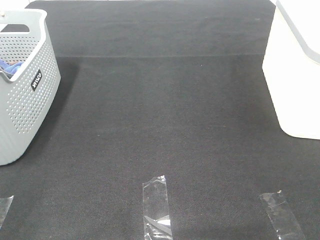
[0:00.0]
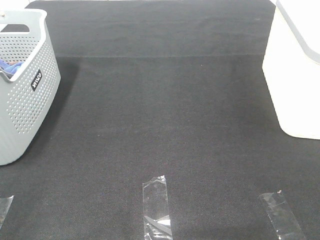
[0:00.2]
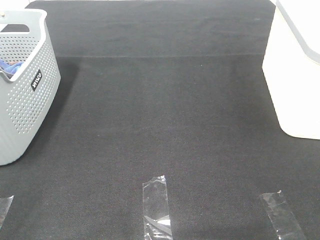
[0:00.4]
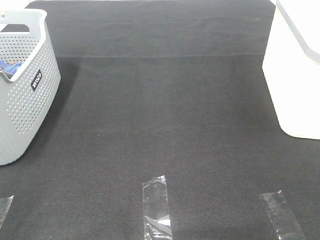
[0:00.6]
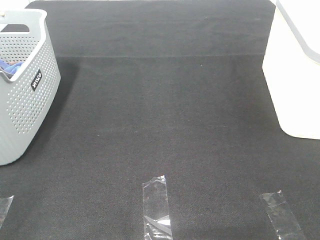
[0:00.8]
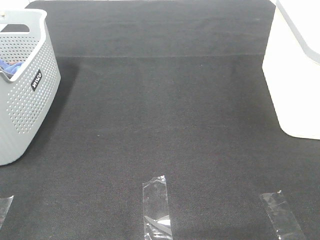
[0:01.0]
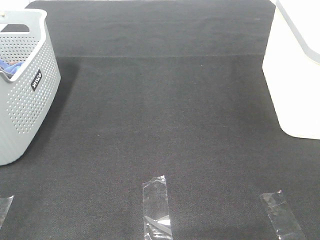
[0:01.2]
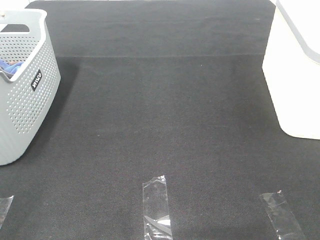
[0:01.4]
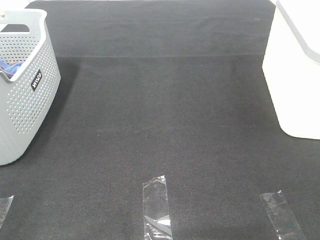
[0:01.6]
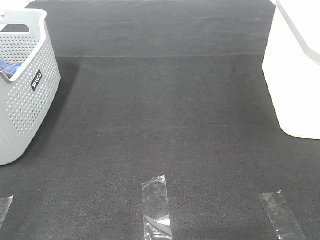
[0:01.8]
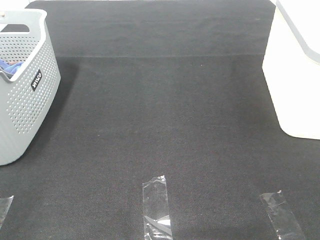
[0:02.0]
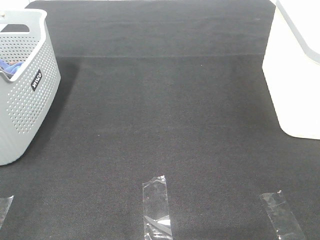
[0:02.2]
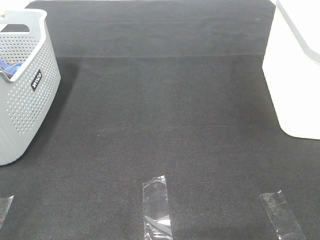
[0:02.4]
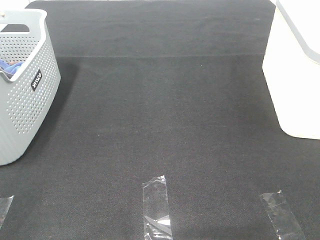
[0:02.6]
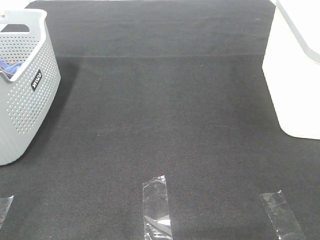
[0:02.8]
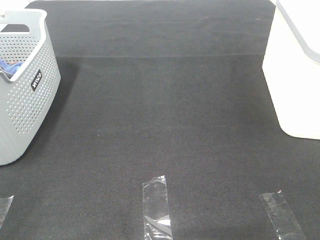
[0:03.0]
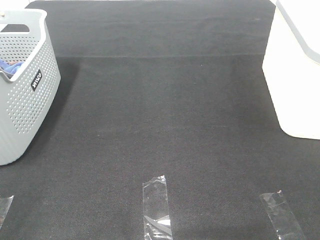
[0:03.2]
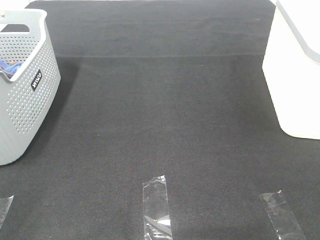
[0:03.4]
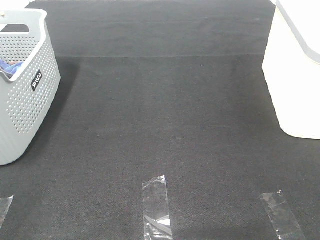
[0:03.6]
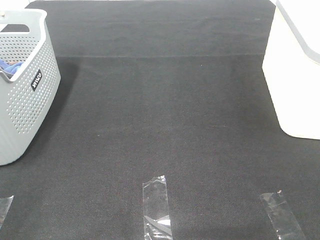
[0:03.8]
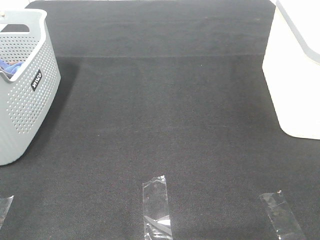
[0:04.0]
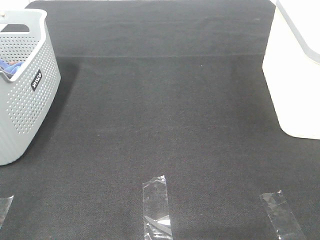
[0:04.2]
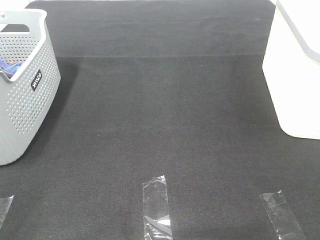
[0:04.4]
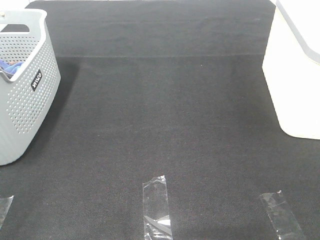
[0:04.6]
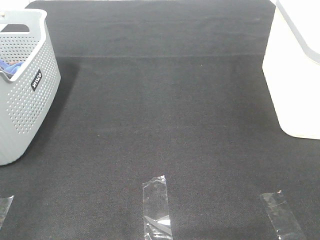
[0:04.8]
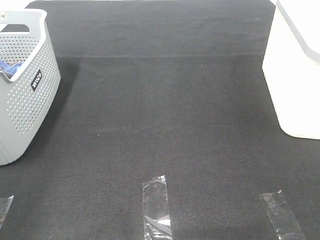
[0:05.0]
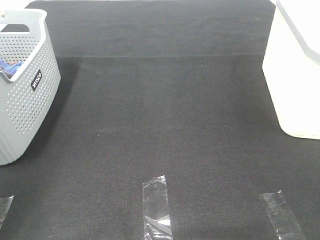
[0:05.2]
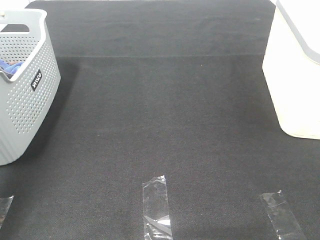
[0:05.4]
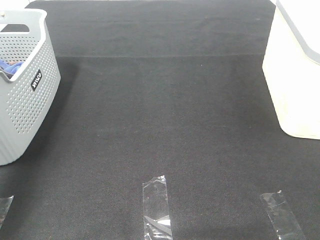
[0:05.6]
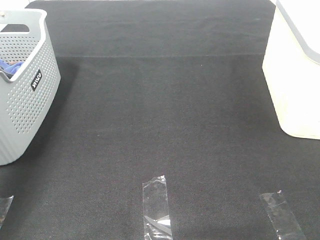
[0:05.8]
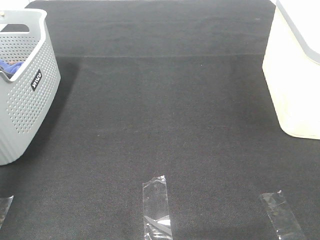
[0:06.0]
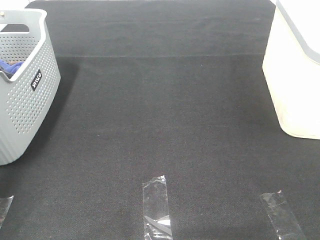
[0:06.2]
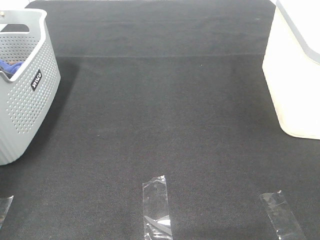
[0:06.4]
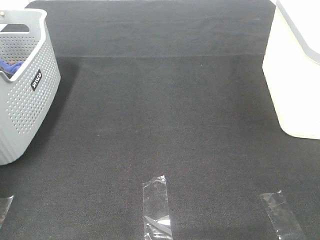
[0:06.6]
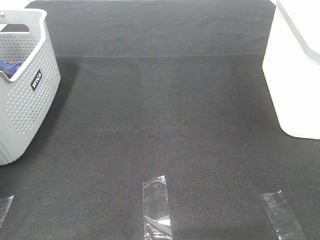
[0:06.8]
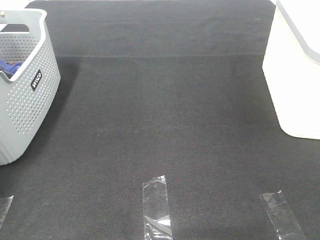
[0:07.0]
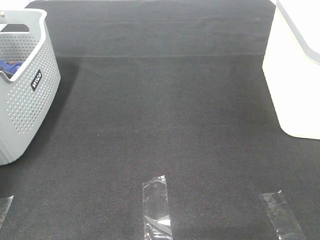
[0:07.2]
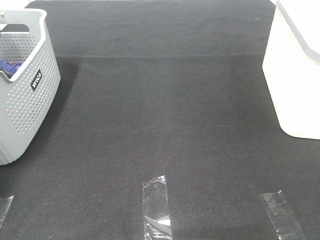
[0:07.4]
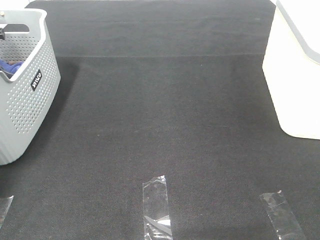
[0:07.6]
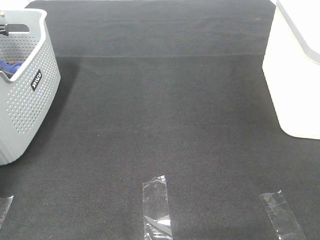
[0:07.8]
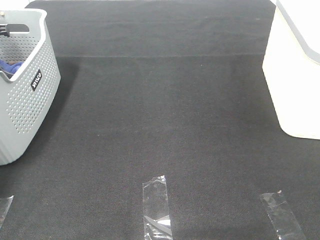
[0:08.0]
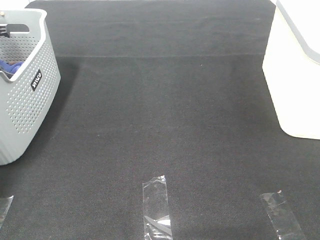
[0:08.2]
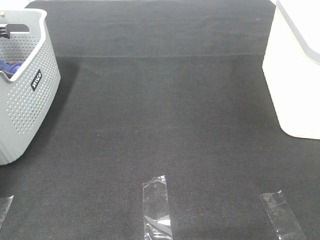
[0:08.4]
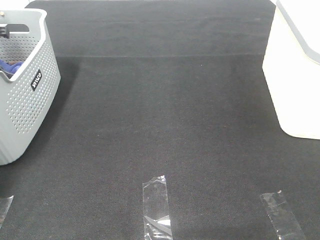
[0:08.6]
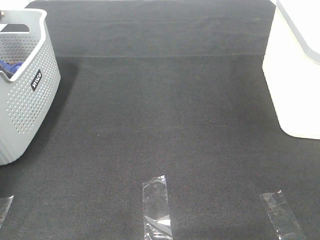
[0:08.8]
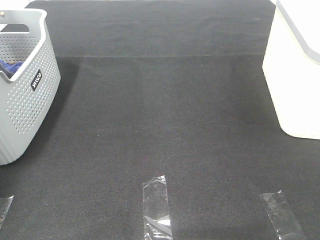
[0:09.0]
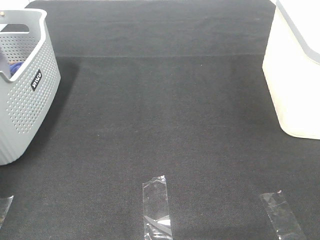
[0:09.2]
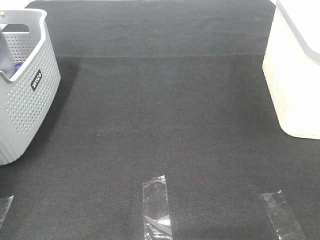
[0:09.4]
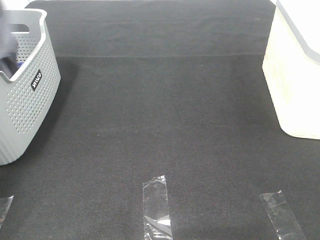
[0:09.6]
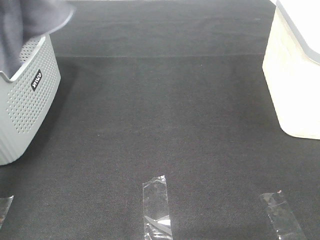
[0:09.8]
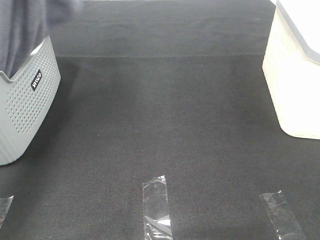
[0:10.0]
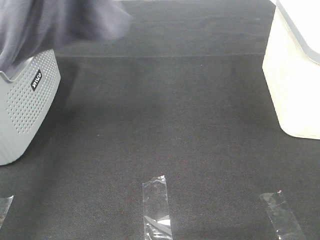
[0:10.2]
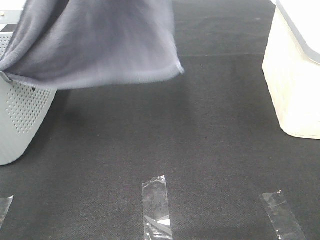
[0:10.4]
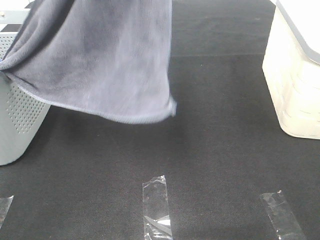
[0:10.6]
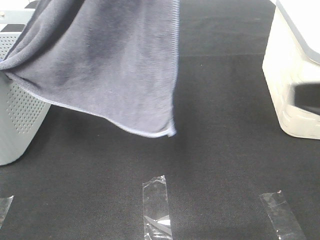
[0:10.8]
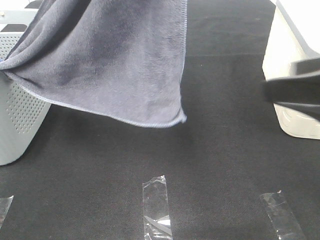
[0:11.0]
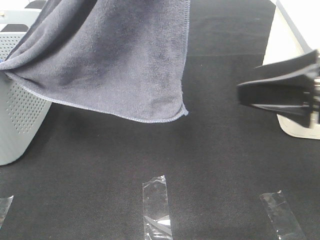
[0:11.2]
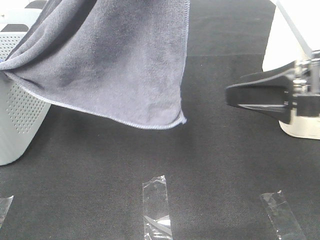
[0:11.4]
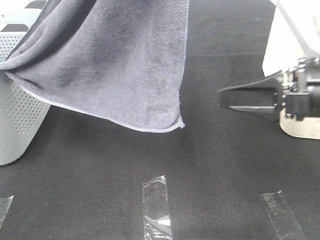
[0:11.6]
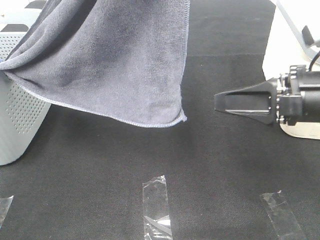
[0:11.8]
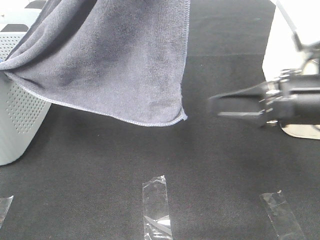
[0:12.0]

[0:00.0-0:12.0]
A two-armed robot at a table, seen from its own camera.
Task of the whole recording: Remove the towel and place it.
0:00.0 to 0:04.4: Neither gripper changes place.
0:04.4 to 0:06.0: The left gripper heads forward, covering some 40 cm.
0:06.0 to 0:07.6: The left gripper is displaced forward, downward and to the left by approximately 20 cm.
0:07.6 to 0:09.0: The left gripper shifts about 10 cm upward, and closes.
0:09.0 to 0:10.4: The right gripper travels forward by some 5 cm. Meanwhile the left gripper heads to the right, upward and backward, covering some 35 cm.
0:10.4 to 0:12.0: The right gripper goes some 20 cm forward and downward. The left gripper changes place by roughly 5 cm.

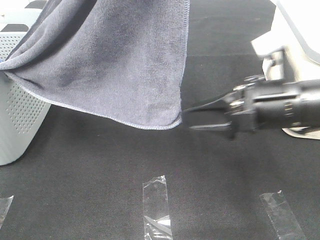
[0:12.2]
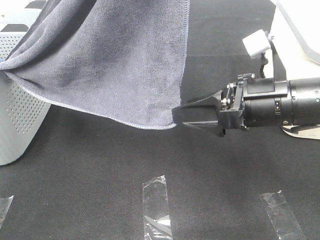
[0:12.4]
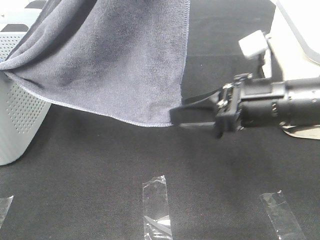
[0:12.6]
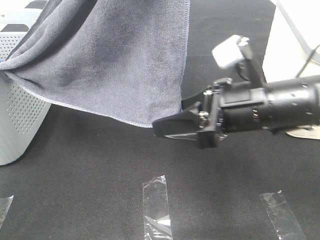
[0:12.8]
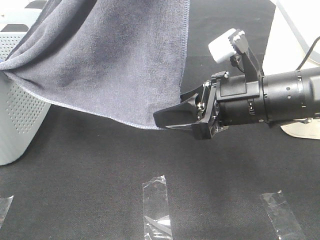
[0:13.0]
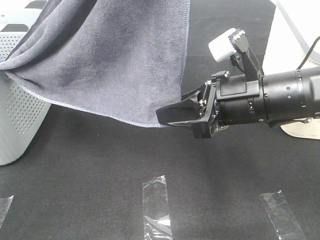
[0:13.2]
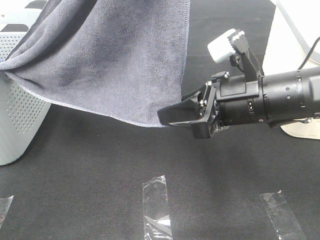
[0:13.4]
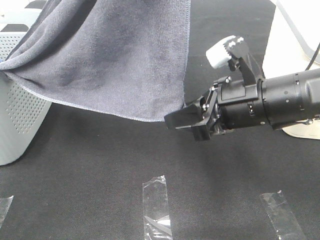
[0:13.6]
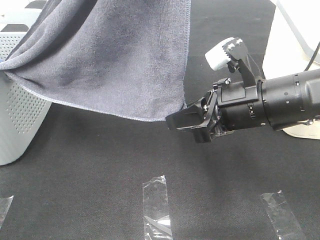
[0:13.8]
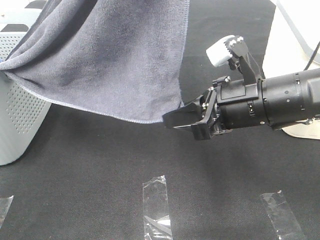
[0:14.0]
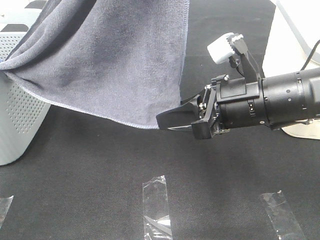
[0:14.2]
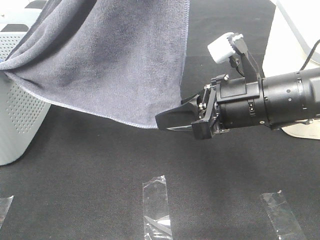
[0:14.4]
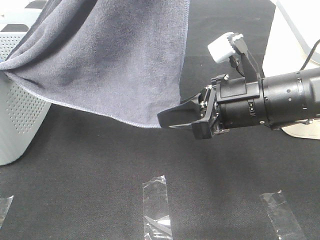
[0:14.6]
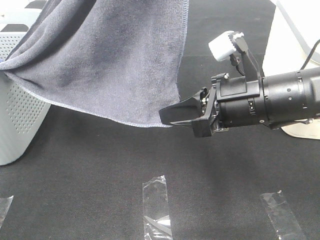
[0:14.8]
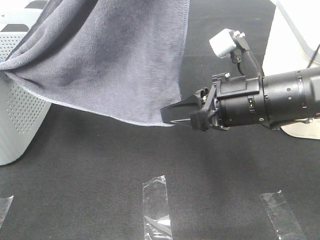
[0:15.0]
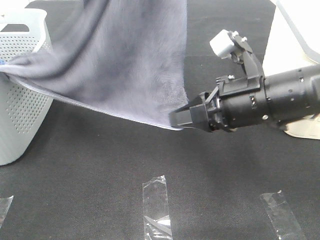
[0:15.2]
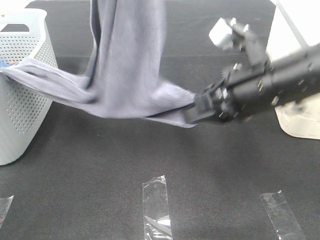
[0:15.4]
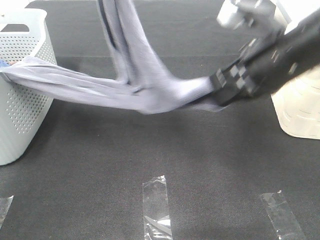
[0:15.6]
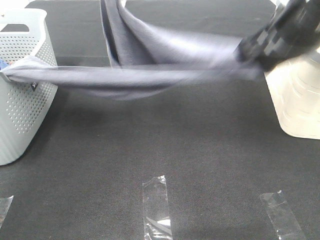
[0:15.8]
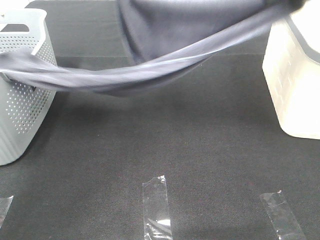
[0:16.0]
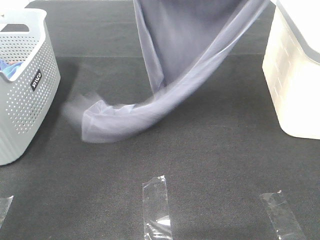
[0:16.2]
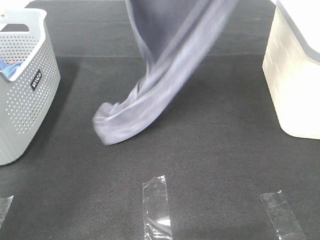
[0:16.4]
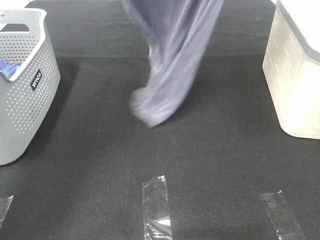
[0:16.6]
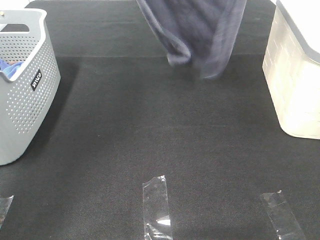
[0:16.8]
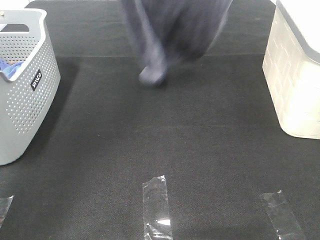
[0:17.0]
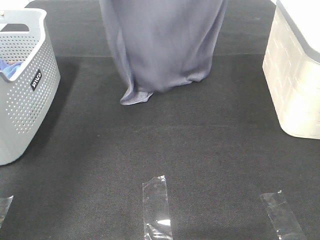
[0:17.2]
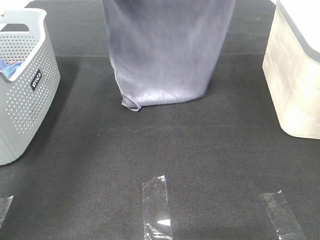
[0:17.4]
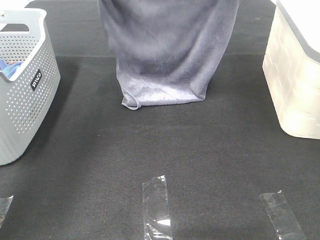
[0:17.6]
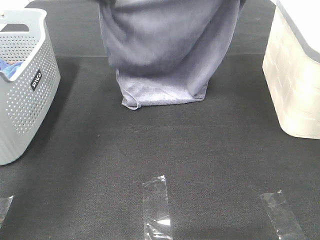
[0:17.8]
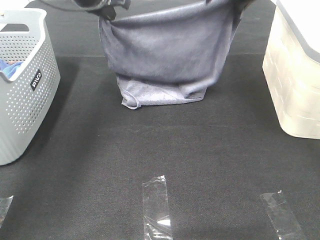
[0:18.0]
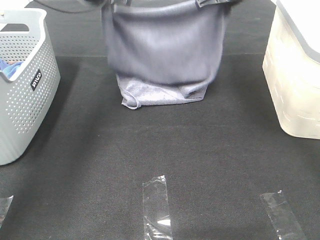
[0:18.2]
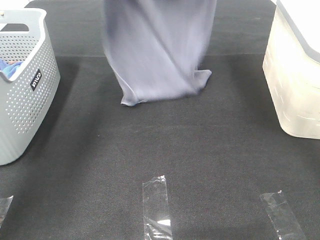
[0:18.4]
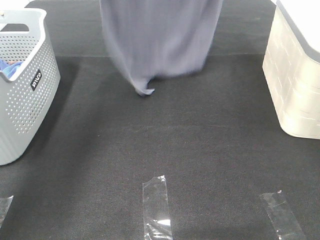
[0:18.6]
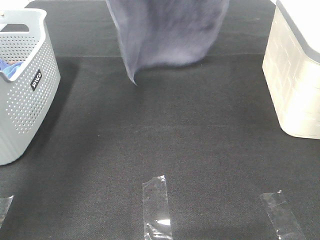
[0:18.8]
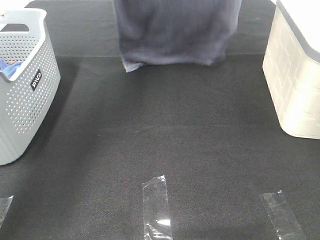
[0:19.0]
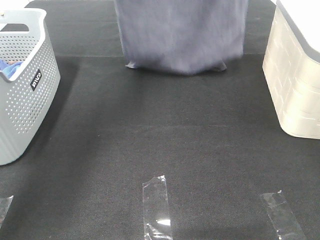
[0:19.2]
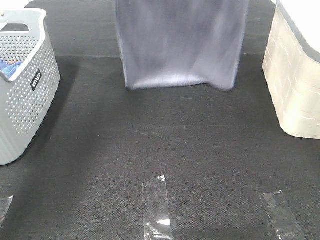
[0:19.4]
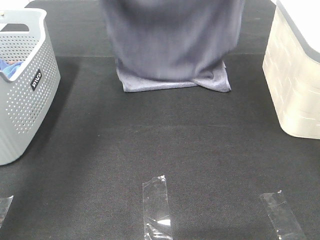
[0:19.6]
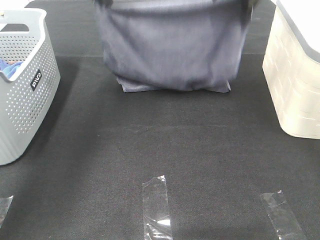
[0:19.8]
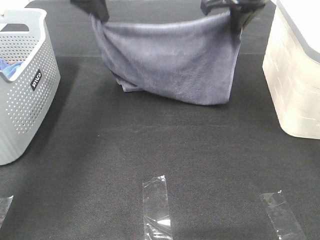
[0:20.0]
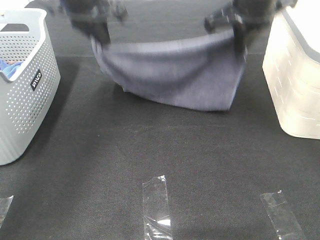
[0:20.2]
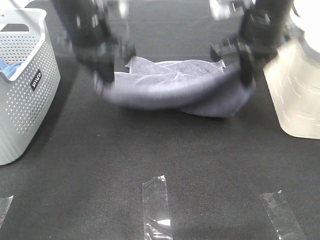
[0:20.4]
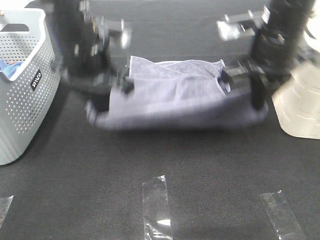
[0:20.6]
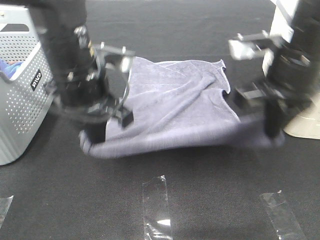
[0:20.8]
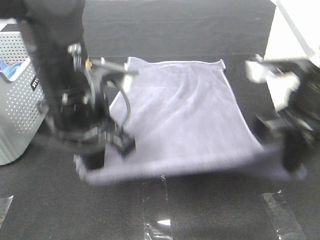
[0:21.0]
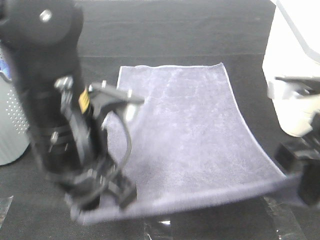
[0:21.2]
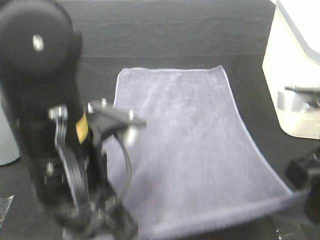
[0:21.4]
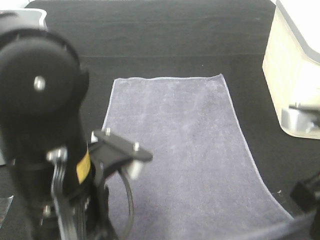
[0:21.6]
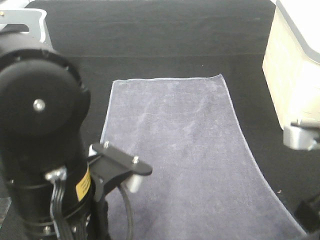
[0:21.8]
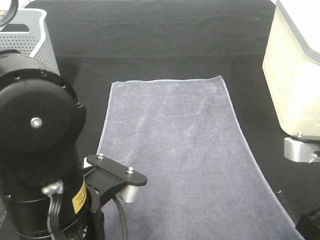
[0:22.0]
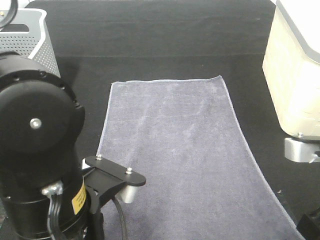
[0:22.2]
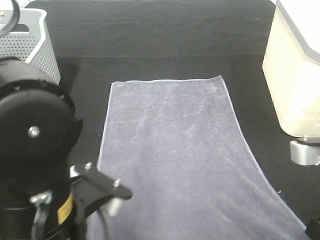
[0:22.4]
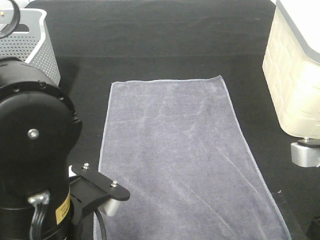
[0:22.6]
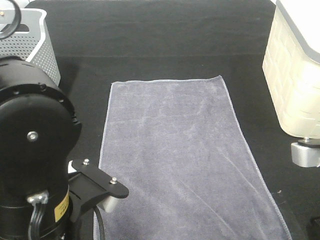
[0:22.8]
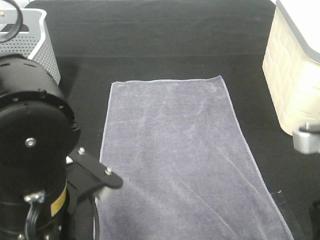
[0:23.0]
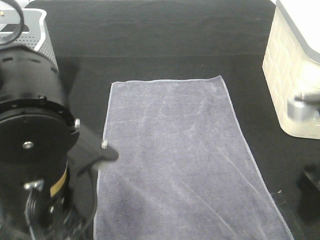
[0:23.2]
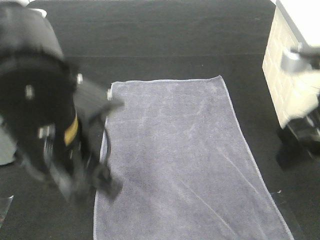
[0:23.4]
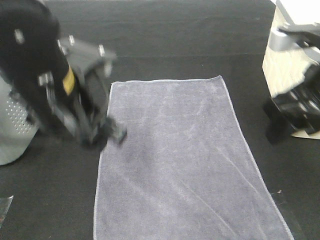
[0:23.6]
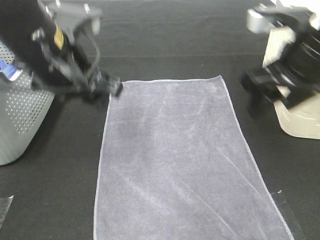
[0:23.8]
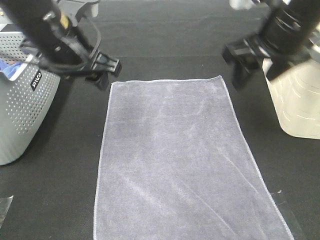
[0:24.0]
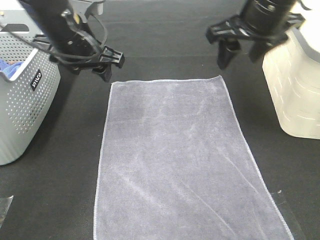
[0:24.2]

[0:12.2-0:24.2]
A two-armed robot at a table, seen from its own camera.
Task of the whole recording: Remove the towel and place it.
Step, 0:14.0 to 0:18.0: Left hand: spread the grey towel flat on the table.
Step, 0:14.0 to 0:18.0: Right hand: spread the grey towel flat on the table.
0:12.2 to 0:13.8: The right gripper closes up.
0:15.2 to 0:16.6: The right gripper heads upward and forward, covering some 35 cm. The left gripper shifts roughly 15 cm forward.
0:16.6 to 0:18.2: The left gripper is displaced downward by approximately 20 cm. The right gripper shifts about 25 cm downward and forward.
0:18.2 to 0:19.8: The left gripper goes upward and returns, roughly 20 cm each way. The right gripper reaches about 20 cm upward, then returns.
0:19.8 to 0:21.2: The grippers both shift backward by about 25 cm.
0:21.2 to 0:22.6: Both grippers move backward, about 5 cm. The right gripper opens up. Meanwhile the left gripper opens up.
0:22.6 to 0:24.2: Both grippers move forward, about 25 cm.
